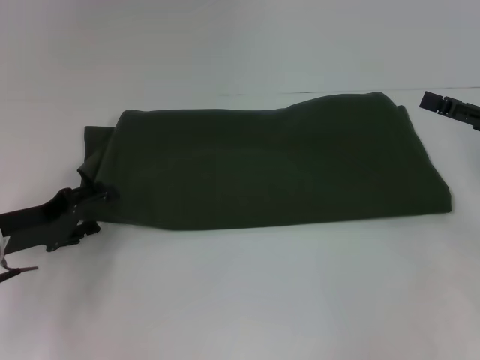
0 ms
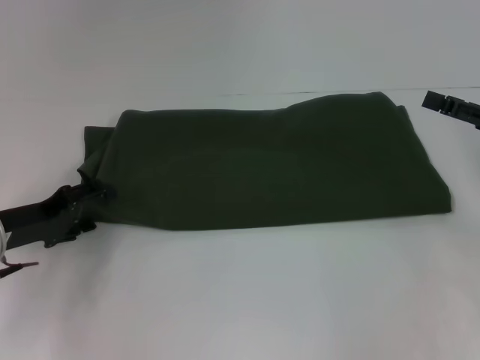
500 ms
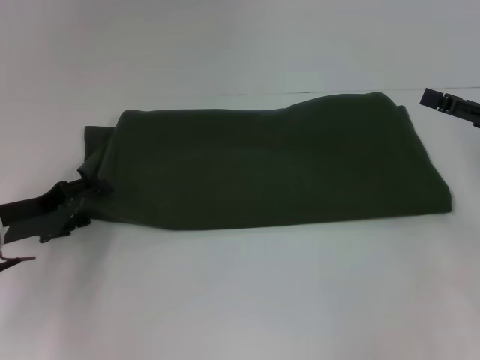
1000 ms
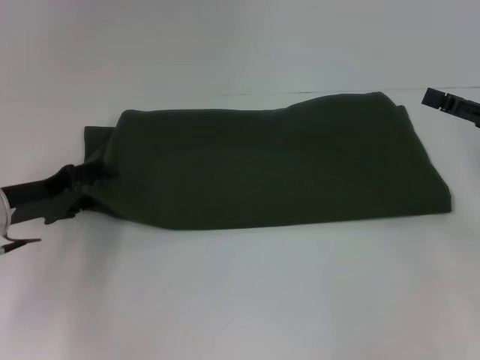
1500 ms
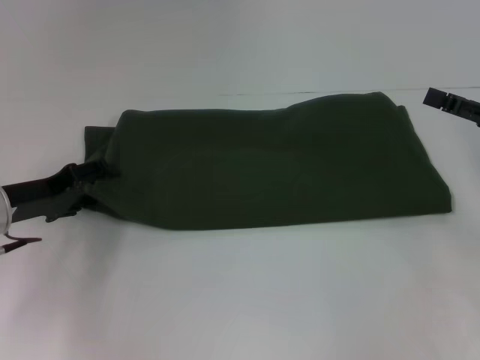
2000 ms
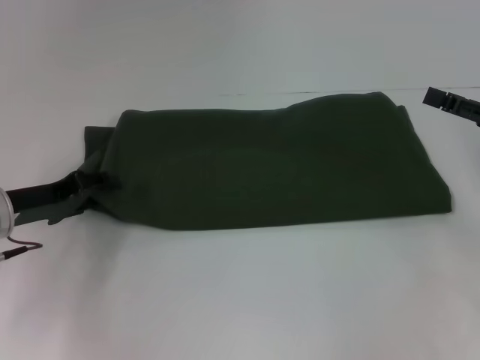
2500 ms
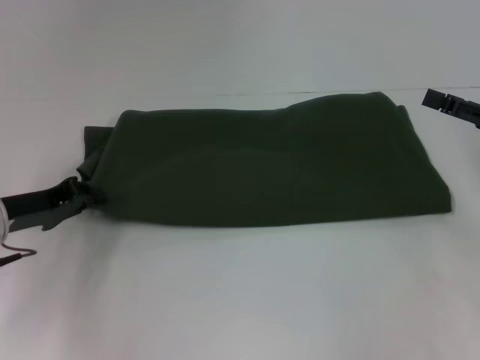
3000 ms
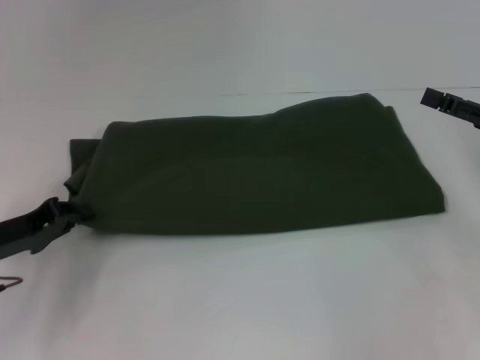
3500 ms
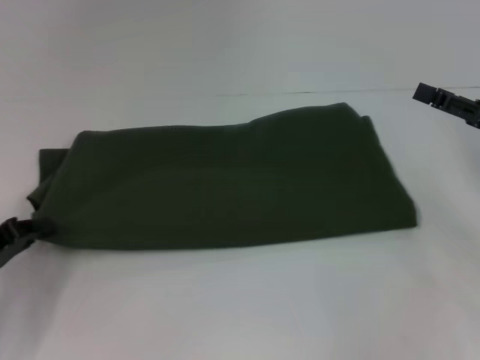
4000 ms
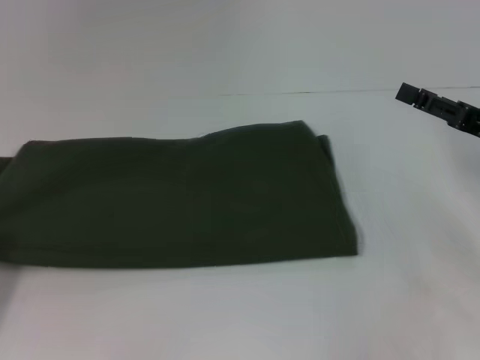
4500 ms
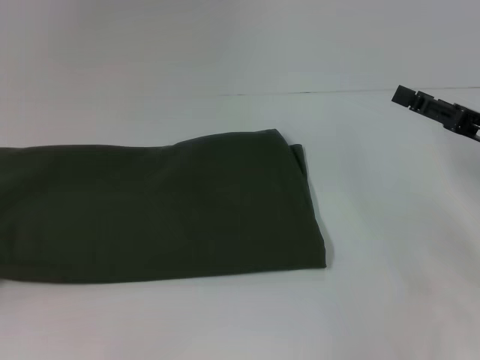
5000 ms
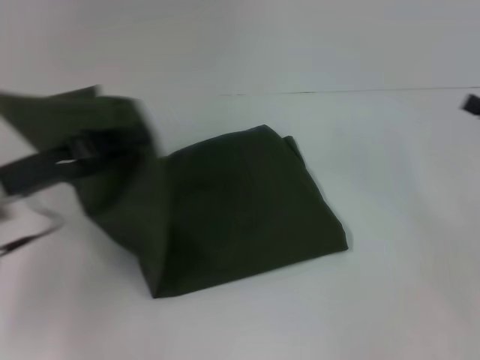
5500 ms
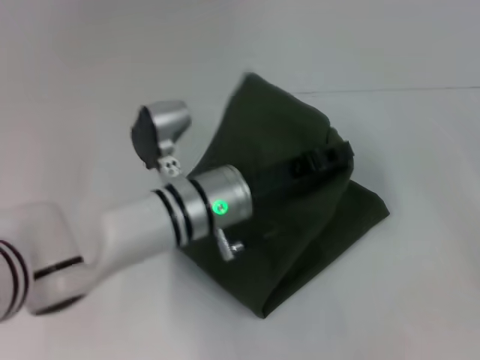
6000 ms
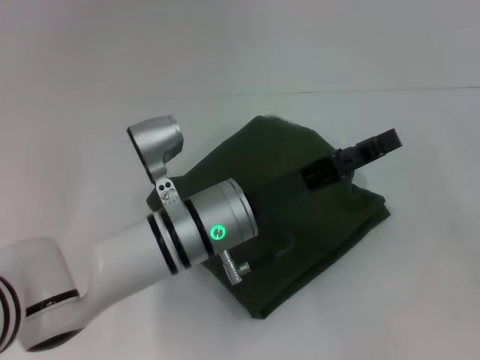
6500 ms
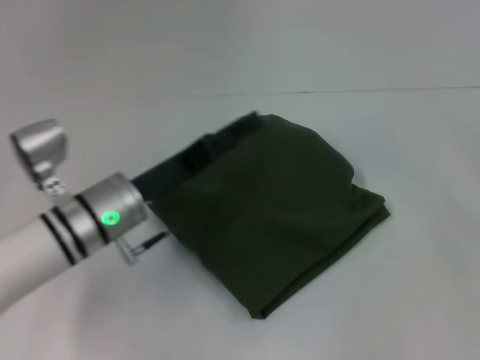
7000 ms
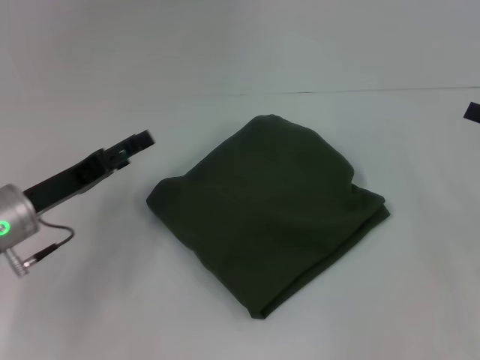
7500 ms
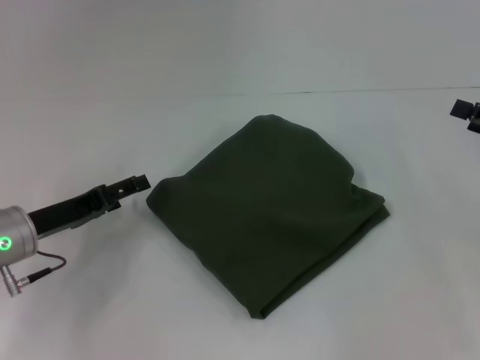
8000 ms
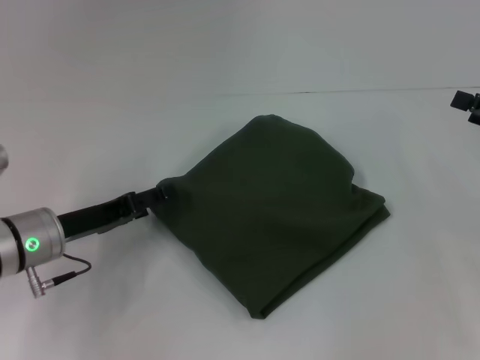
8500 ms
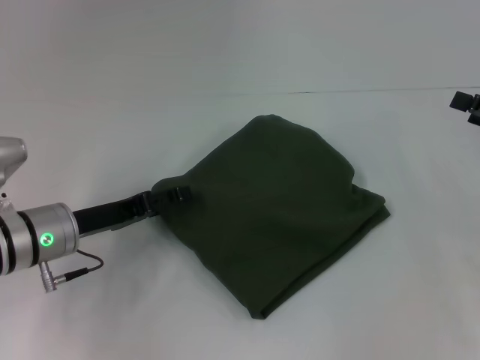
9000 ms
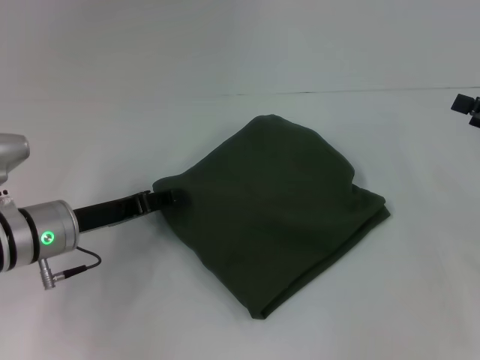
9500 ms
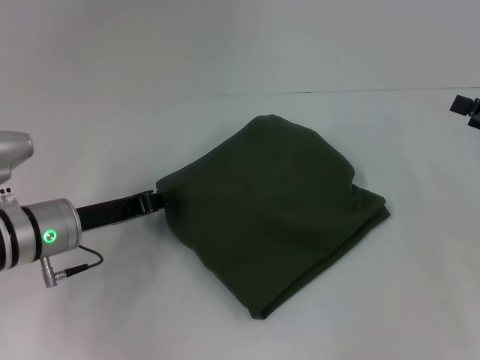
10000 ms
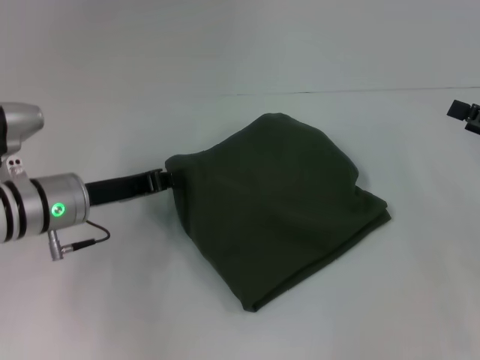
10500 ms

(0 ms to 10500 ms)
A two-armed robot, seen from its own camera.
Step, 0 ms - 6500 ms: Fold the clothes with your left hand.
0 ms - 2000 ms: The grippers stay close to where they were, moving slightly.
2000 ms - 4000 ms: The left gripper goes about 10 cm backward and to the left, and closes up.
4000 ms - 6500 ms: The left gripper heads to the right, covering roughly 30 cm, while the right gripper moves to the right and backward, about 10 cm.
6500 ms - 8500 ms: The right gripper moves to the left and forward, roughly 10 cm. Meanwhile the left gripper moves to the left, some 20 cm, and opens its fingers.
8500 ms - 10500 ms: The left gripper closes up.

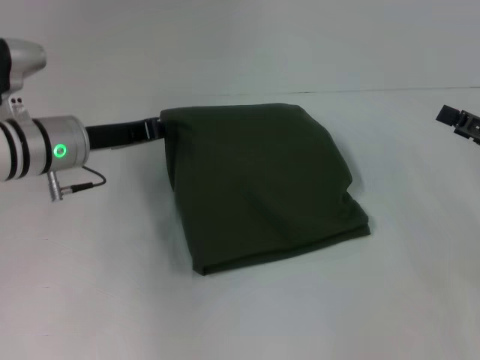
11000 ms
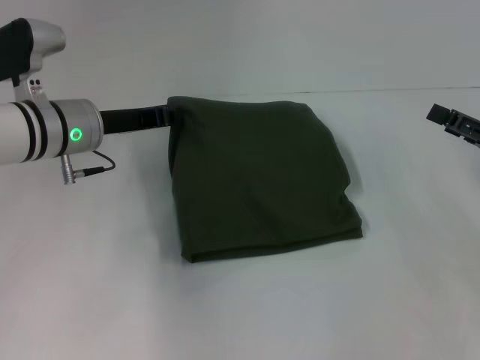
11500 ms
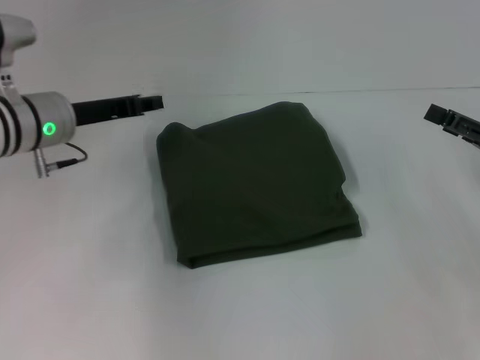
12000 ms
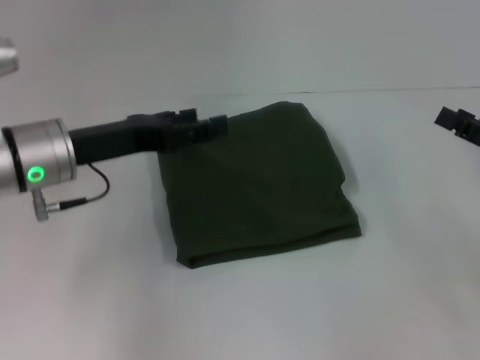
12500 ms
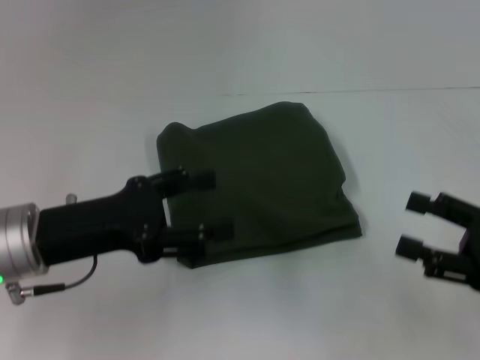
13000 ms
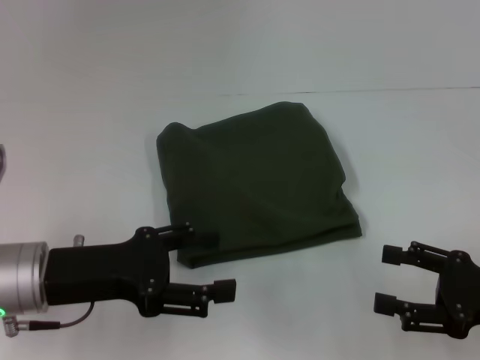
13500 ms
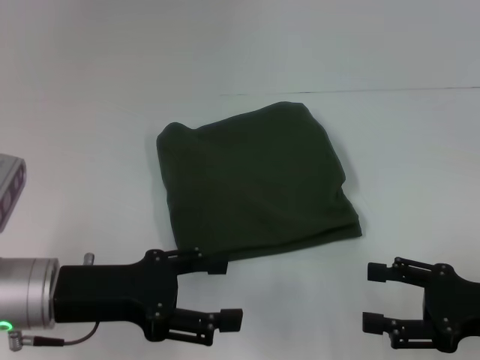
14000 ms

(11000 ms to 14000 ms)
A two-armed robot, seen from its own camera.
11000 ms - 12500 ms: The left gripper heads backward, covering approximately 5 cm, and opens up.
12500 ms - 14000 ms: The two grippers go approximately 10 cm backward.
